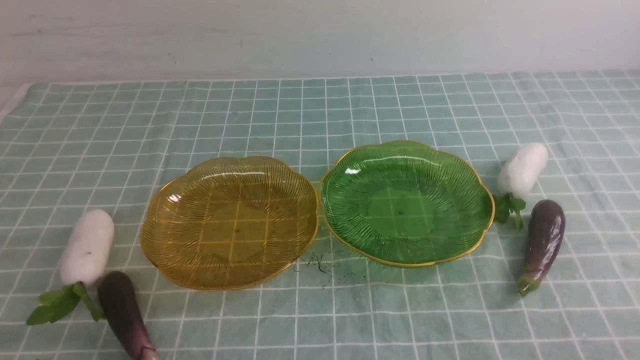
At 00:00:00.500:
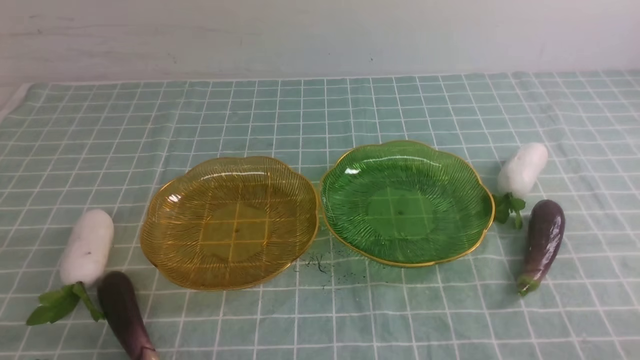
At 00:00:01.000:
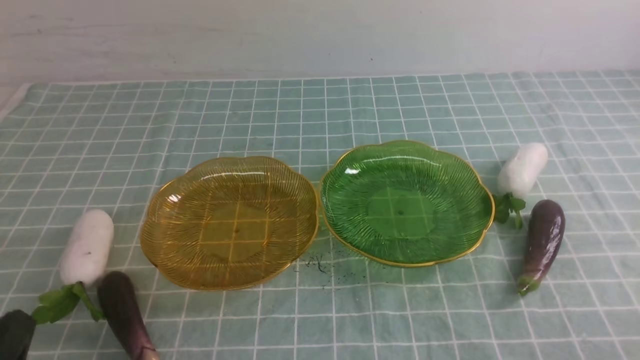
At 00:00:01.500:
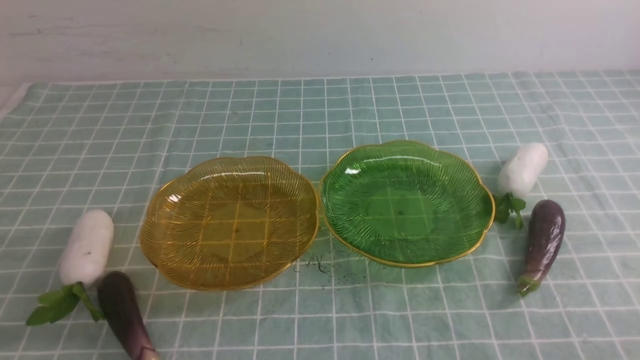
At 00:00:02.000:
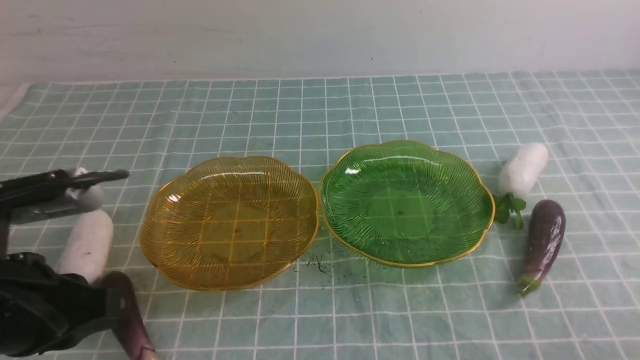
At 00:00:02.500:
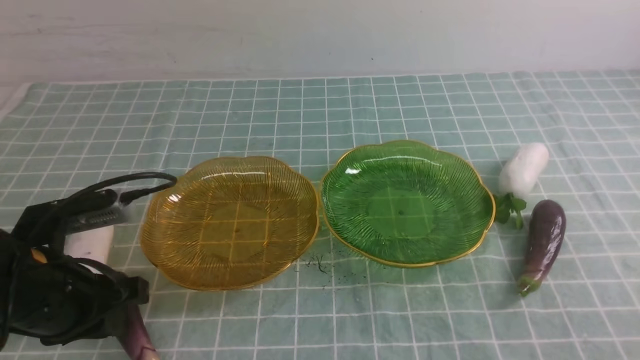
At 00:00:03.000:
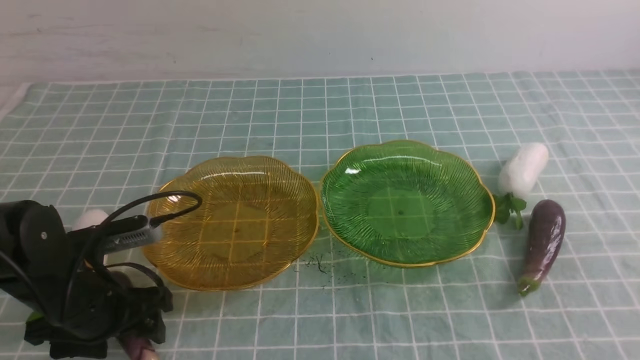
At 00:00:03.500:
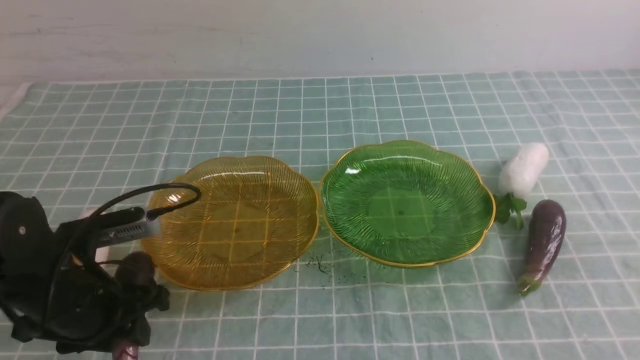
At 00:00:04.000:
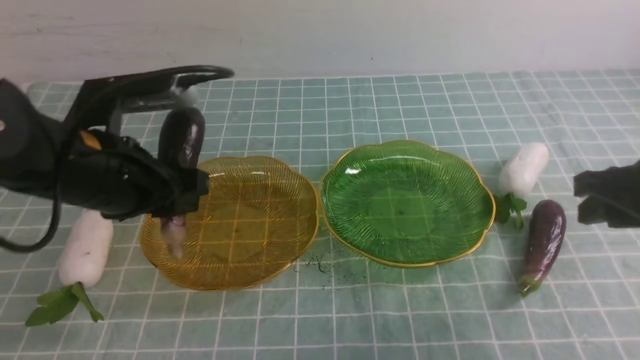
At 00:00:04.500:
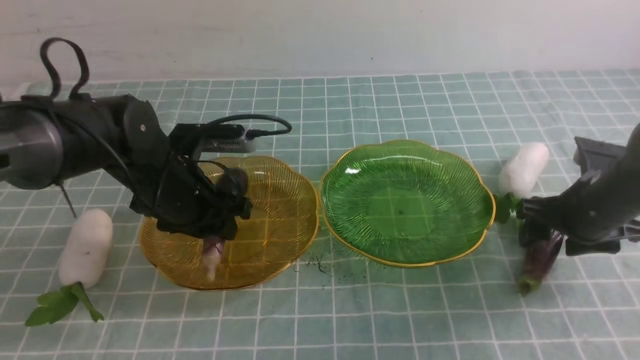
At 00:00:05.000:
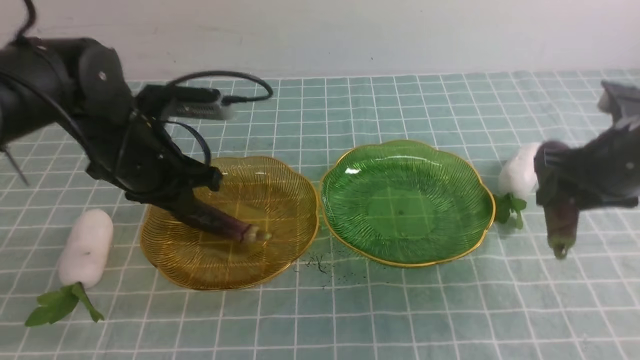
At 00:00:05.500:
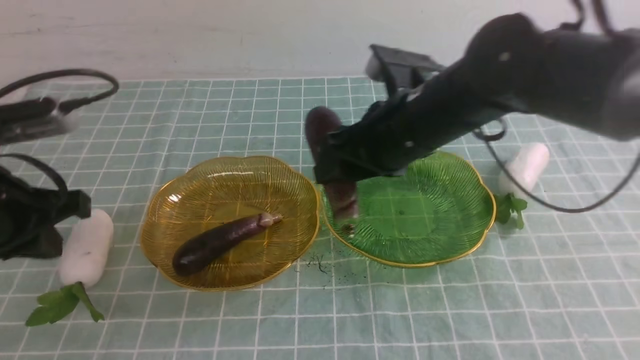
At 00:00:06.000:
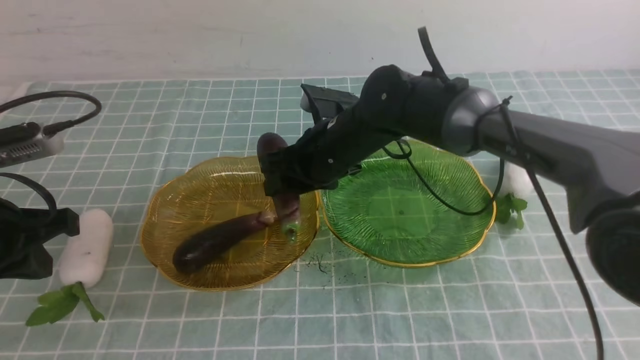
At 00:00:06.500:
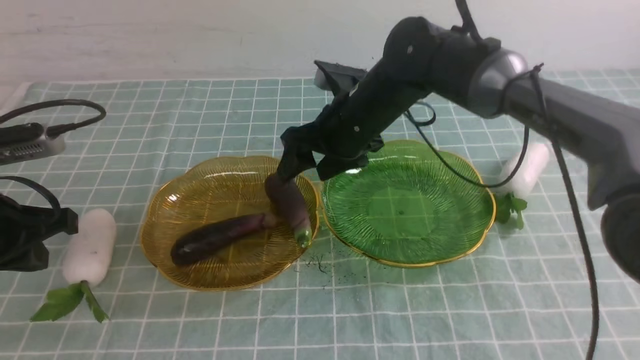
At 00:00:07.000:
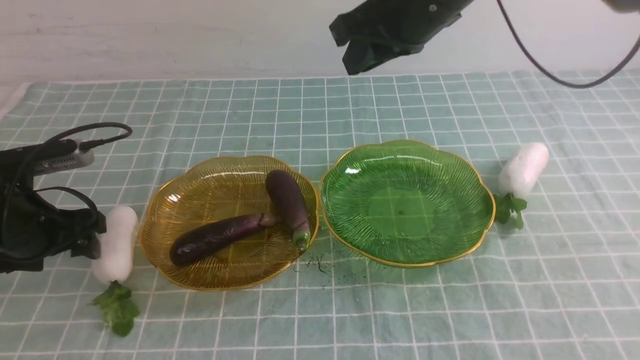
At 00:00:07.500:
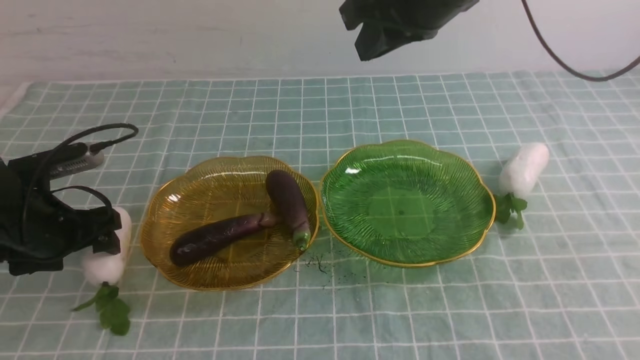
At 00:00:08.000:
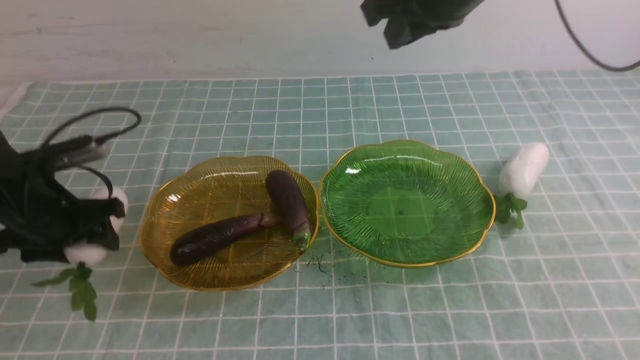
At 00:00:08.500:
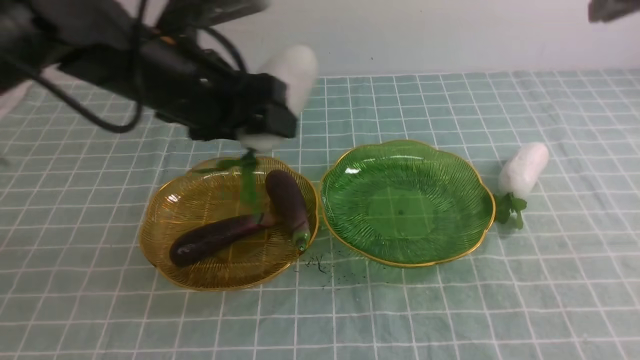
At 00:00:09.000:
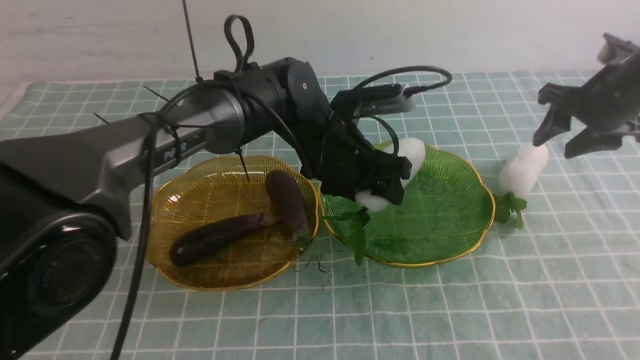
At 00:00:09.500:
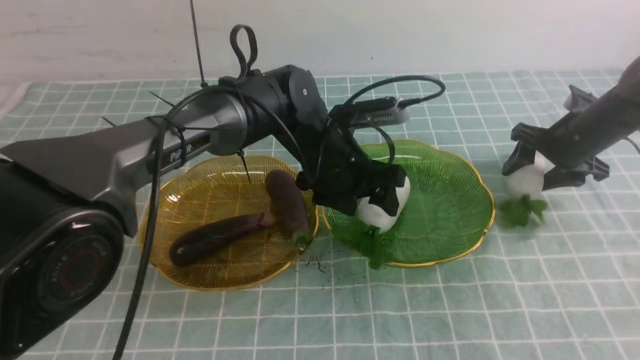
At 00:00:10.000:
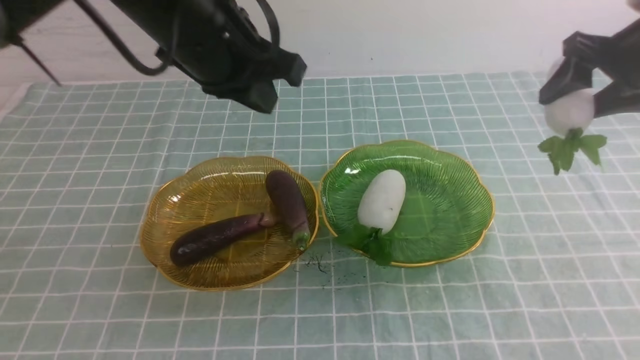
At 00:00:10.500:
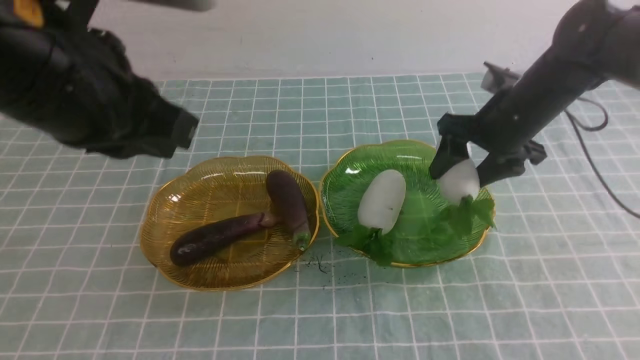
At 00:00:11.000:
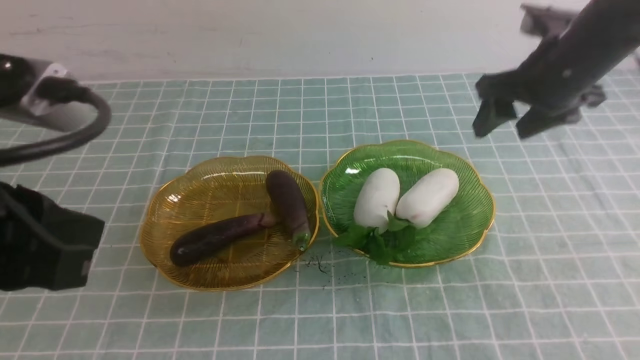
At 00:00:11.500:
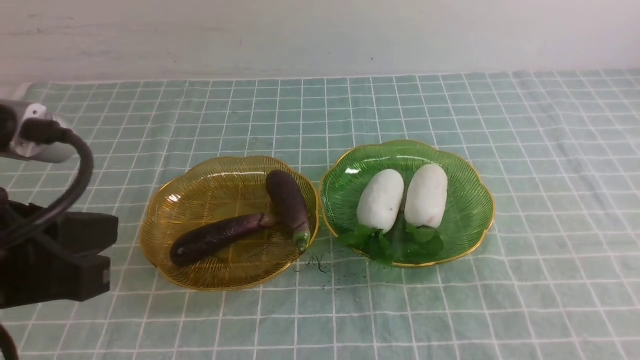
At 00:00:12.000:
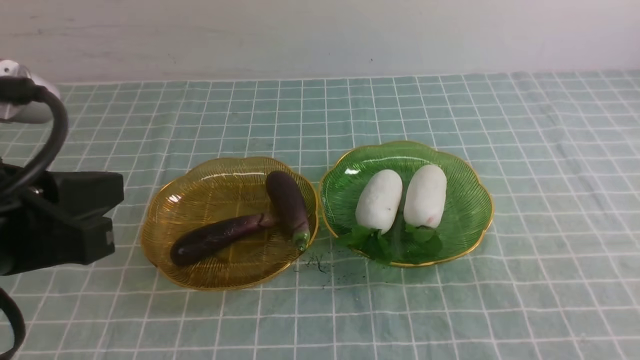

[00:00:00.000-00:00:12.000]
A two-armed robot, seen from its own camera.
Step, 00:00:00.000 to 00:00:04.500: use the left arm to grab an eggplant and put it into the left plate.
Step, 00:00:05.000 to 00:00:06.500: use the right arm to grab an eggplant and put it into the left plate.
Step, 00:00:07.000 to 00:00:09.000: use the left arm to grab a radish and put it into the right plate.
Step, 00:00:09.500 to 00:00:10.500: use the right arm to grab a radish and put it into the right plate.
00:00:00.000 to 00:00:02.000: The left gripper heads upward and forward, covering some 15 cm.
00:00:02.000 to 00:00:04.000: The left gripper moves forward, approximately 10 cm, travels downward and back again, approximately 10 cm each way, and opens, while the right gripper shifts approximately 20 cm forward, and opens.
00:00:04.000 to 00:00:06.000: The right gripper shifts about 30 cm to the left and forward; the left gripper moves to the left, roughly 10 cm, and closes its fingers.
00:00:06.000 to 00:00:08.000: The left gripper heads forward, covering some 10 cm, and opens. The right gripper heads upward and to the right, covering about 25 cm, and closes up.
00:00:08.000 to 00:00:10.000: The right gripper travels to the right and downward by roughly 20 cm, and opens its fingers. The left gripper shifts roughly 20 cm to the right and upward, and closes up.
00:00:10.000 to 00:00:12.000: The left gripper shifts about 25 cm backward and to the left, while the right gripper is displaced backward by about 40 cm, and closes its fingers.

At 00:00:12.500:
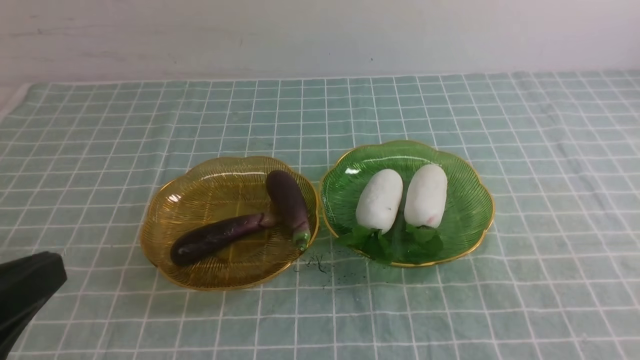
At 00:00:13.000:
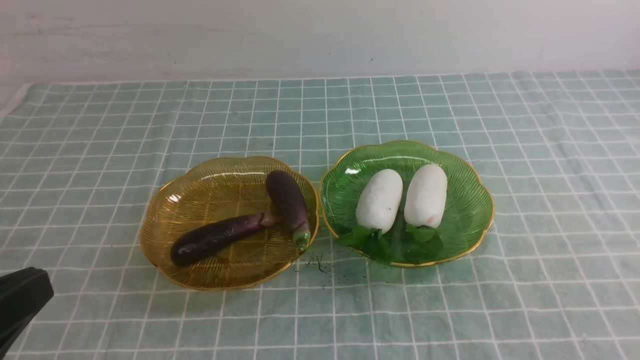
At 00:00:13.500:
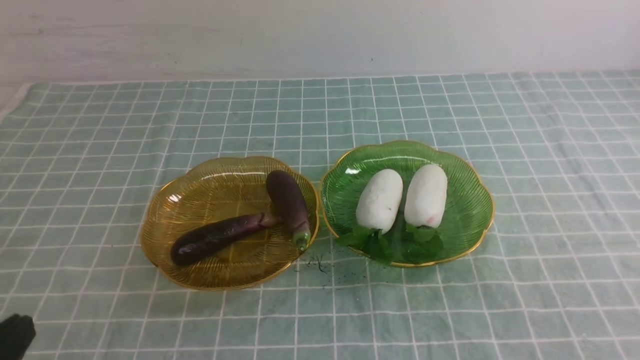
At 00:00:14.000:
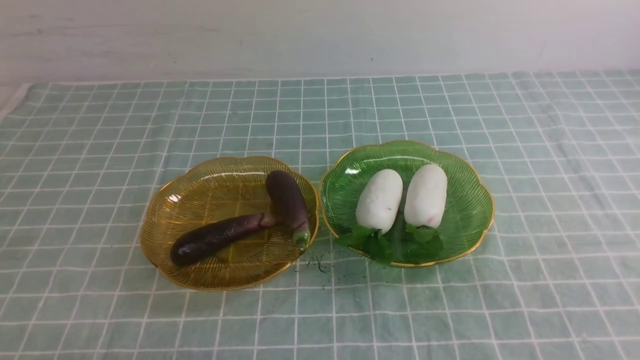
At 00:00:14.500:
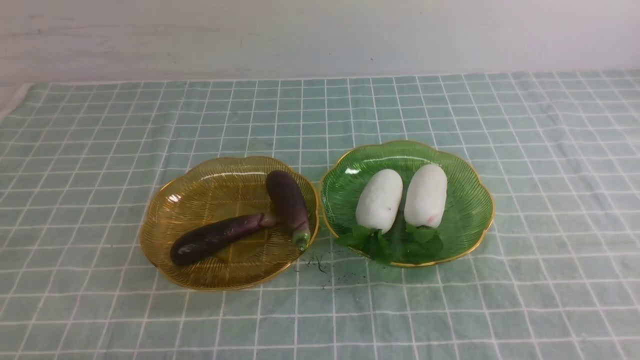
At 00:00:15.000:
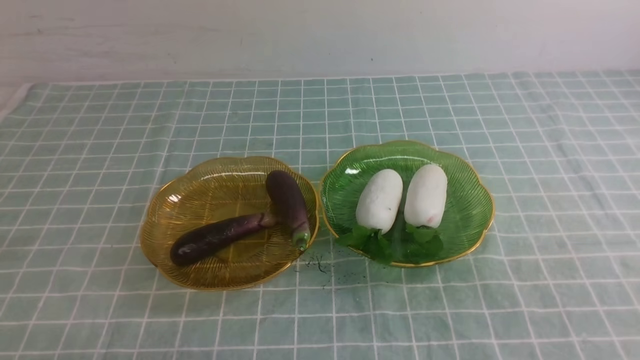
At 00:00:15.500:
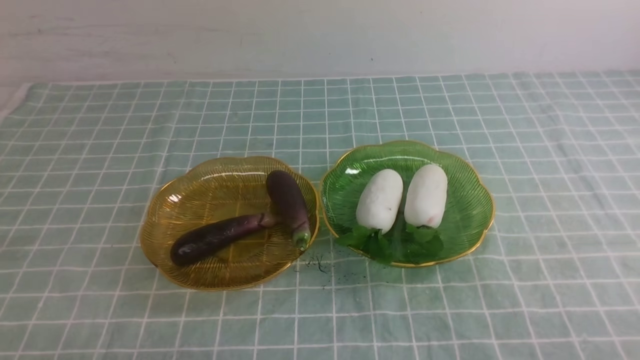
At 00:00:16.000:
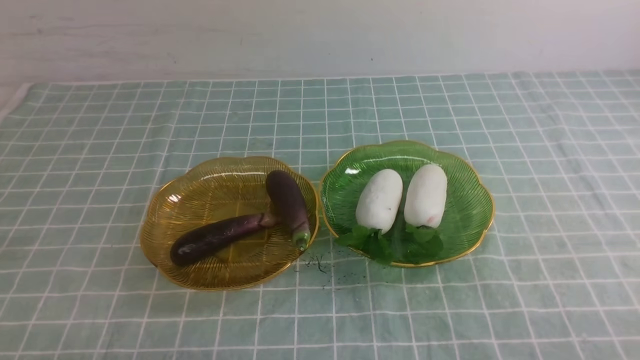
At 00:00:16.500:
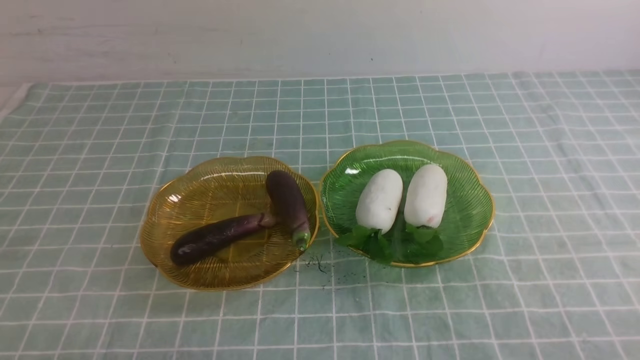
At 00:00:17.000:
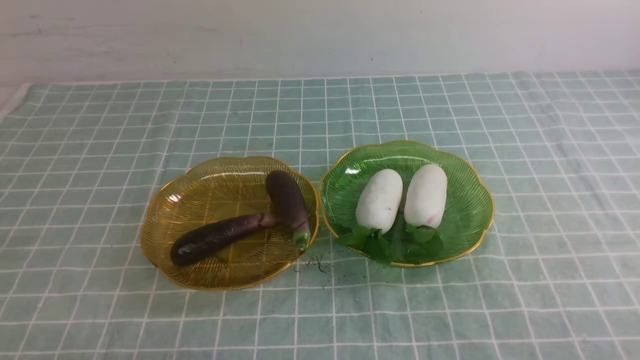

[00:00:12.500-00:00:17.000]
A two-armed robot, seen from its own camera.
00:00:12.500 to 00:00:14.500: The left gripper is displaced downward by approximately 15 cm.
